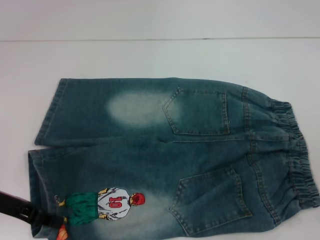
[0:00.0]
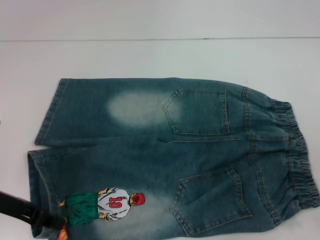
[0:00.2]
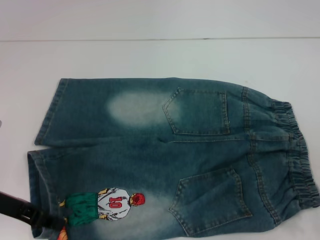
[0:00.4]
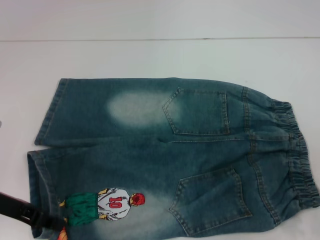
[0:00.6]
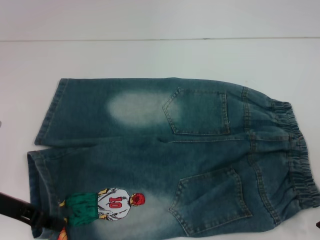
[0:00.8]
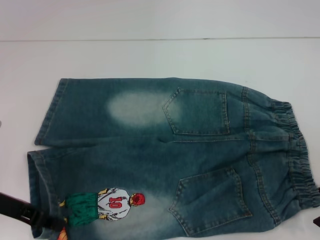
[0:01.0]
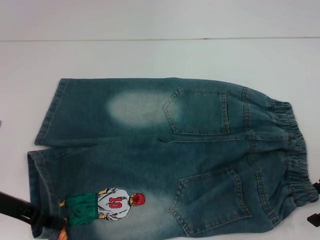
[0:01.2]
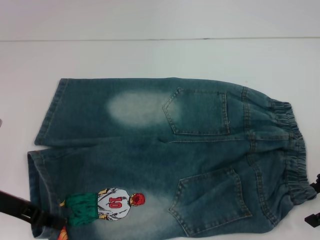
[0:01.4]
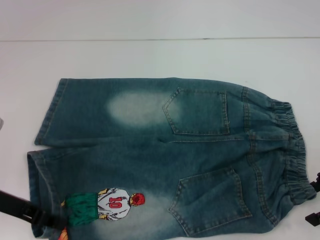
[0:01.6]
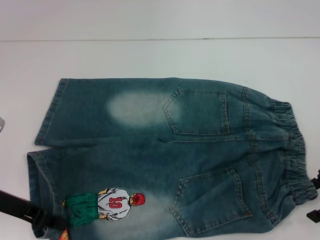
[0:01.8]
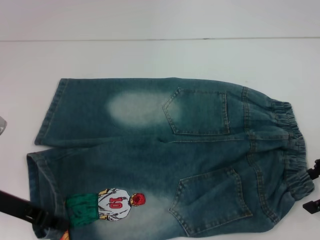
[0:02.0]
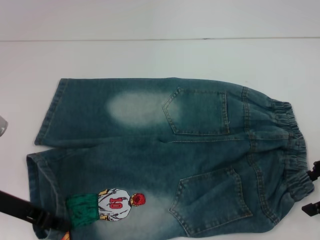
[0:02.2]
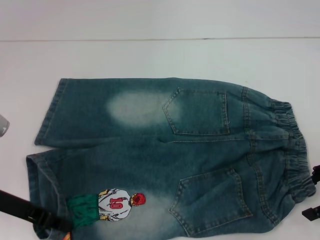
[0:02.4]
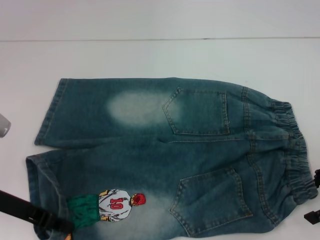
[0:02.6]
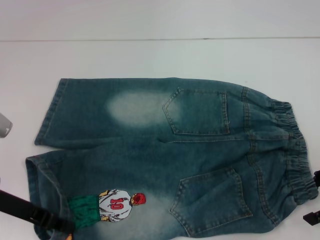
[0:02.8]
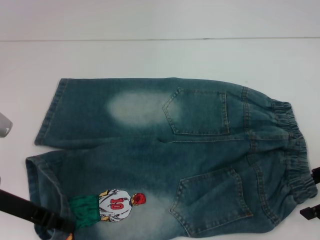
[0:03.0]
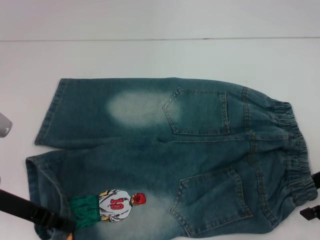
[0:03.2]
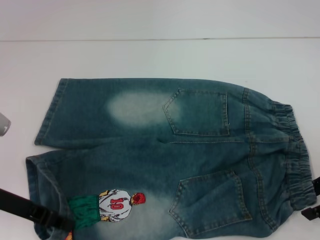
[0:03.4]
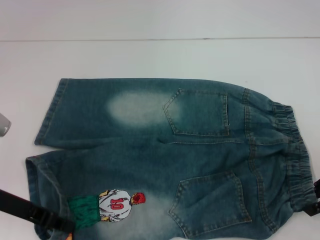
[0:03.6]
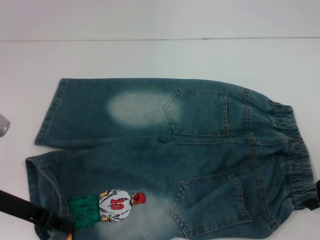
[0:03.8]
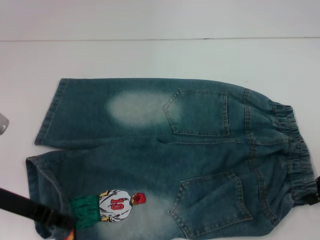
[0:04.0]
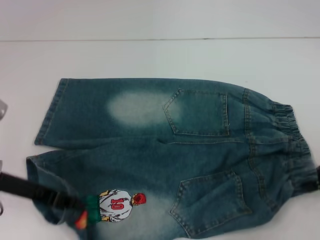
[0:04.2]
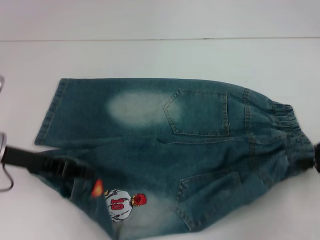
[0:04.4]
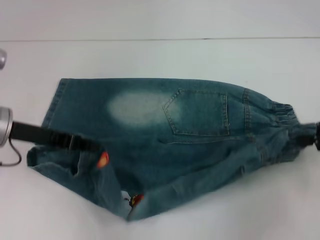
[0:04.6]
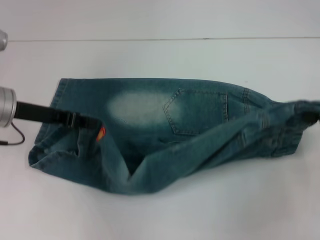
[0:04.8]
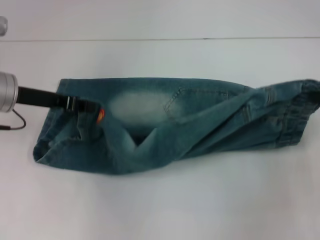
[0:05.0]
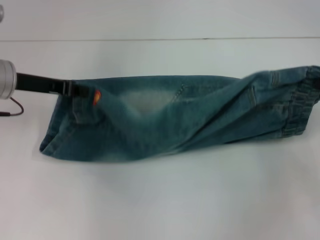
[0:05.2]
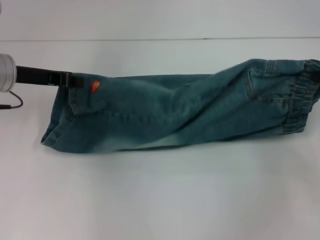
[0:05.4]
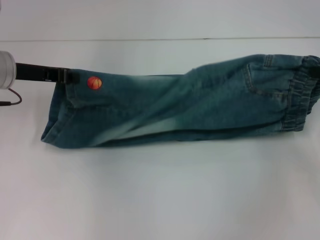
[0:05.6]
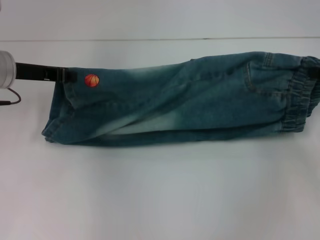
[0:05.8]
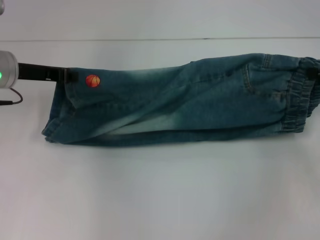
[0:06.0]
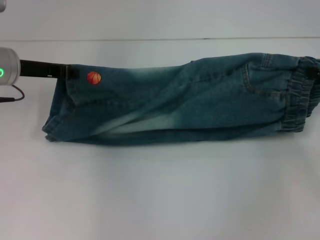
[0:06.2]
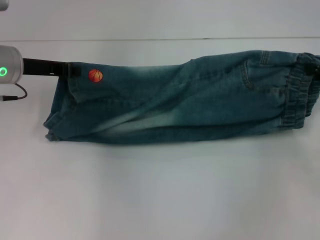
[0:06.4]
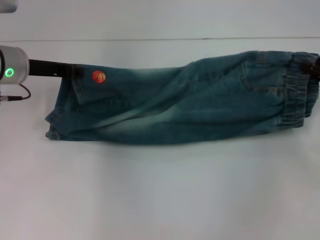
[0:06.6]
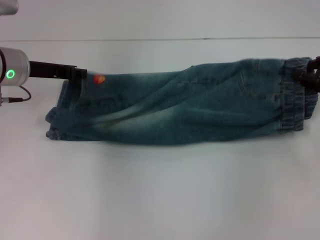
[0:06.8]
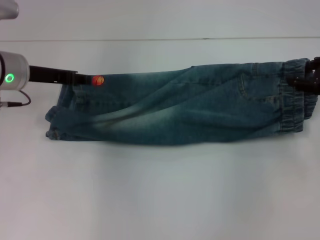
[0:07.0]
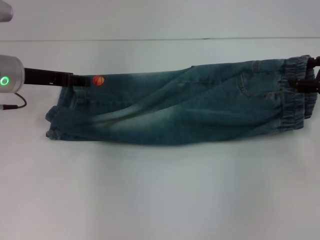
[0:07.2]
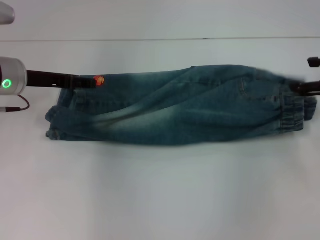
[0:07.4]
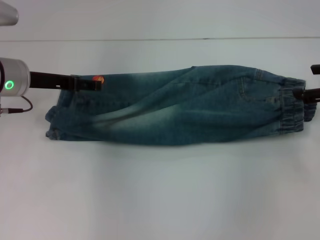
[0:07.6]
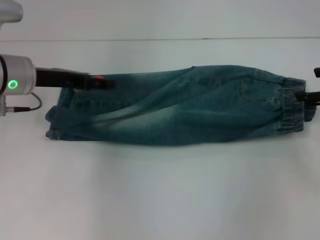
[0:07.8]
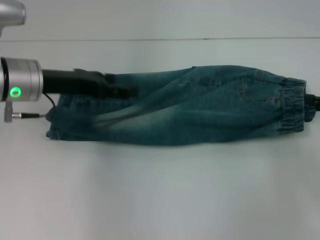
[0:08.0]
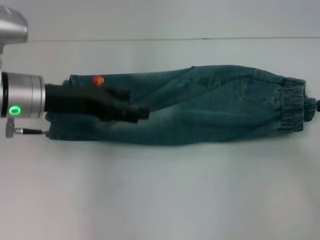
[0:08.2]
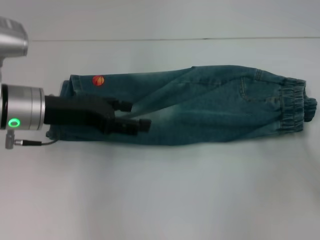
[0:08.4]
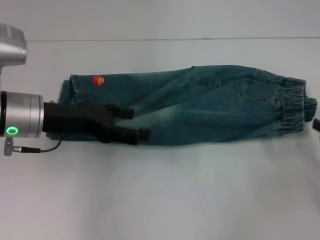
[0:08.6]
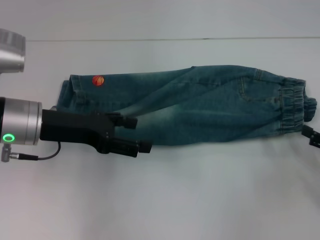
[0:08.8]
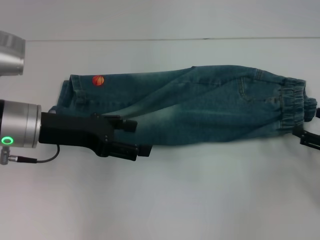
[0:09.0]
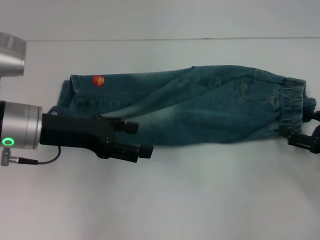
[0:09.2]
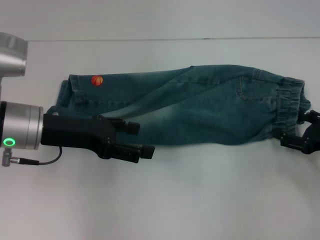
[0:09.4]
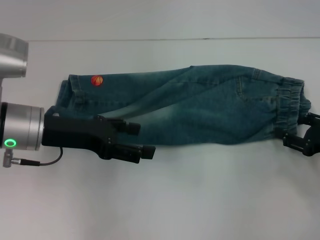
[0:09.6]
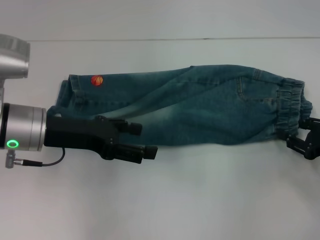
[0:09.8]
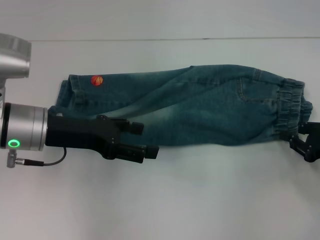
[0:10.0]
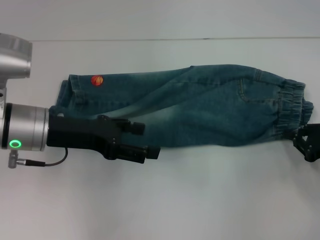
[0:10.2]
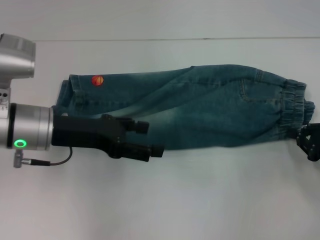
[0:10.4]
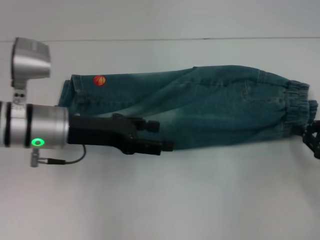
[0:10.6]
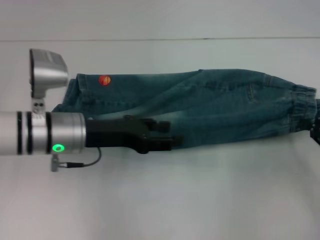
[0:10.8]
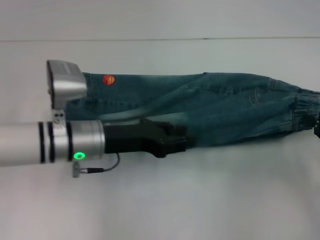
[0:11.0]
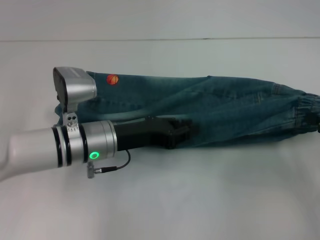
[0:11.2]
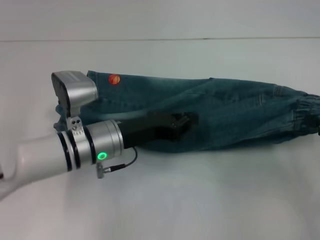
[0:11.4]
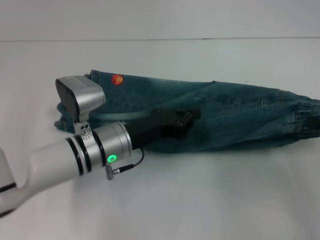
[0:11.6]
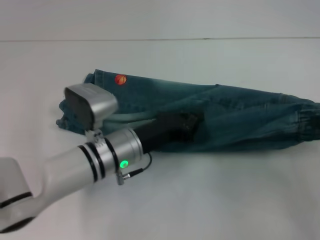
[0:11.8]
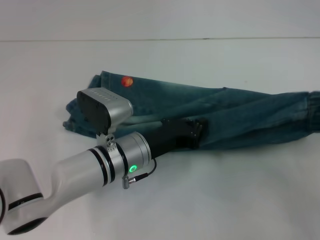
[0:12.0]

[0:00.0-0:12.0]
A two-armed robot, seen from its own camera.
Step, 0:00.0 to 0:04.0: Hold the lower right waistband with your right hand.
Step, 0:04.2 to 0:06.8: Fold upward with your left hand.
Step, 0:07.0 to 0:07.4: Fold upward with your right hand.
Step, 0:07.6 to 0:10.4: Grab the waistband with your right hand.
0:00.0 to 0:03.0: The grippers stay close to where they were, moving slightly.
0:03.0 to 0:04.4: The right gripper closes its fingers.
0:04.4 to 0:06.0: The two grippers go roughly 10 cm forward.
0:06.0 to 0:07.6: The left gripper opens. Meanwhile the right gripper opens its fingers.
0:07.6 to 0:09.0: The left gripper is displaced backward by some 10 cm, while the right gripper goes roughly 15 cm backward and downward.
0:09.0 to 0:10.4: The right gripper closes up.
0:10.4 to 0:12.0: The right gripper goes about 10 cm upward; the left gripper heads to the right and downward, covering roughly 15 cm, and closes up.

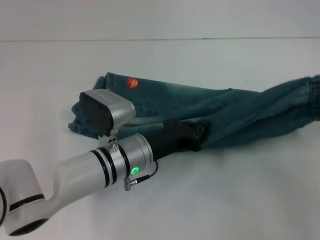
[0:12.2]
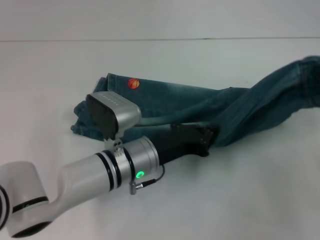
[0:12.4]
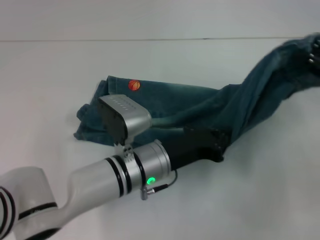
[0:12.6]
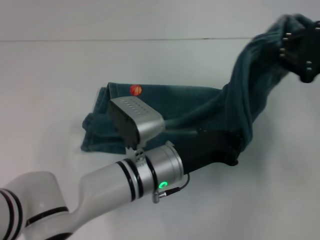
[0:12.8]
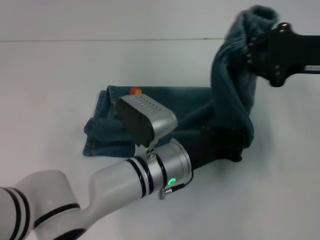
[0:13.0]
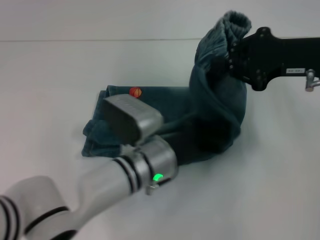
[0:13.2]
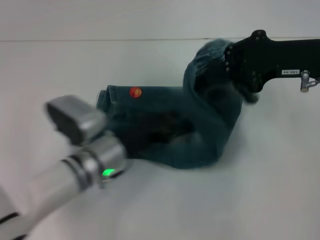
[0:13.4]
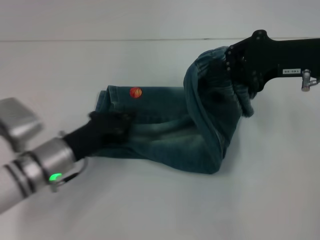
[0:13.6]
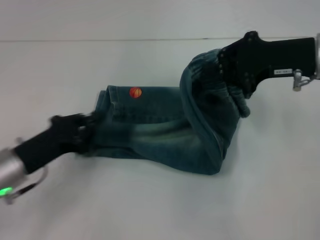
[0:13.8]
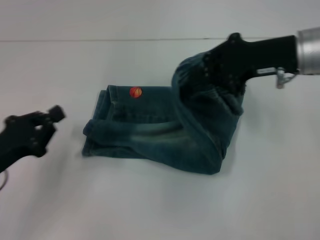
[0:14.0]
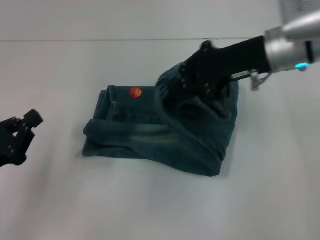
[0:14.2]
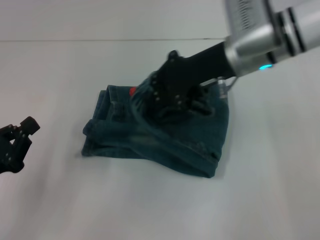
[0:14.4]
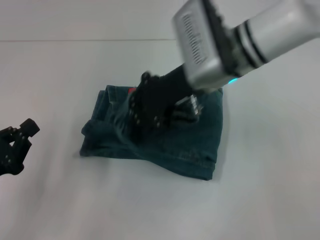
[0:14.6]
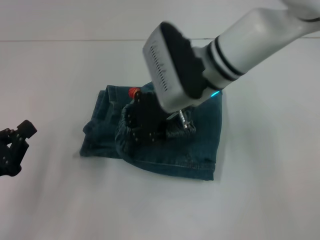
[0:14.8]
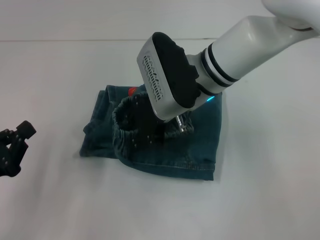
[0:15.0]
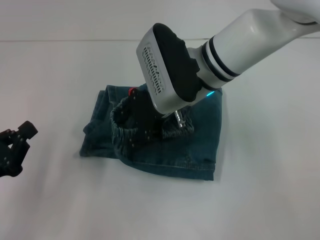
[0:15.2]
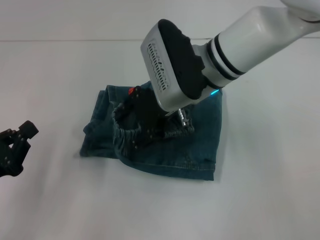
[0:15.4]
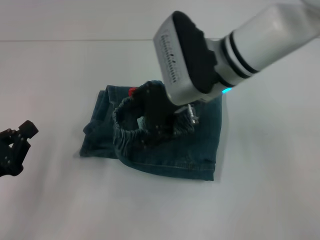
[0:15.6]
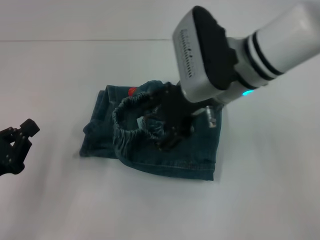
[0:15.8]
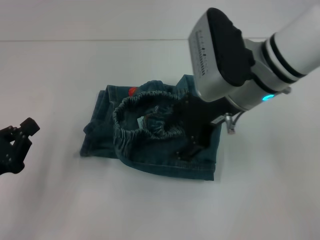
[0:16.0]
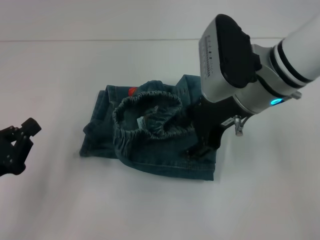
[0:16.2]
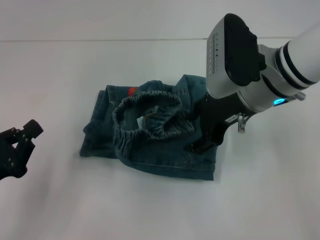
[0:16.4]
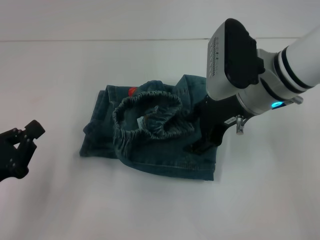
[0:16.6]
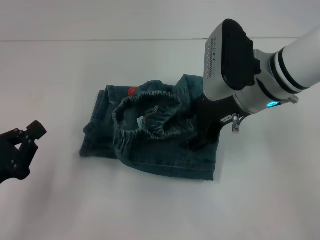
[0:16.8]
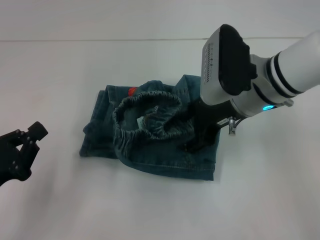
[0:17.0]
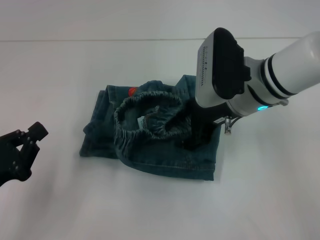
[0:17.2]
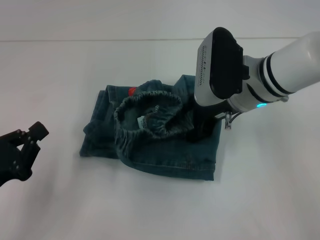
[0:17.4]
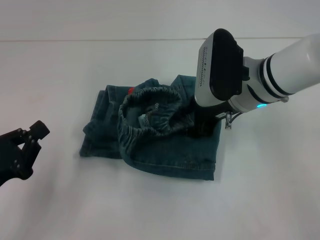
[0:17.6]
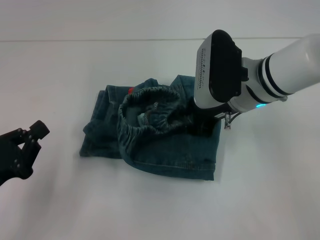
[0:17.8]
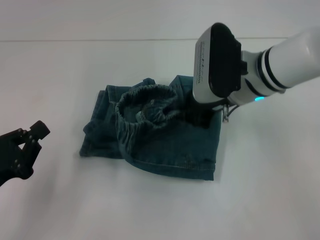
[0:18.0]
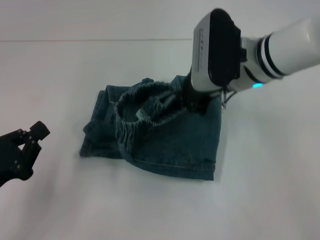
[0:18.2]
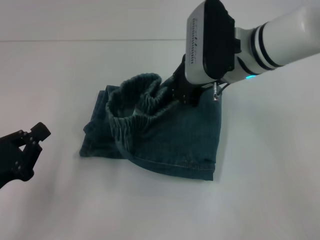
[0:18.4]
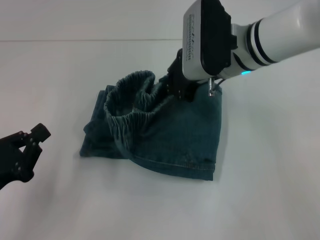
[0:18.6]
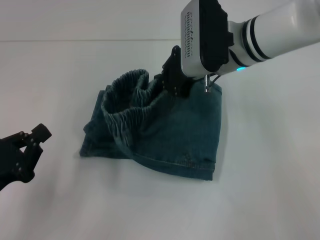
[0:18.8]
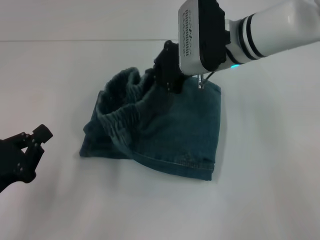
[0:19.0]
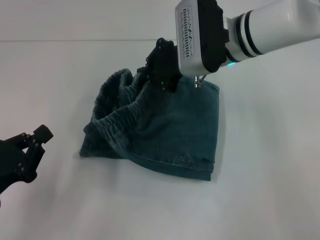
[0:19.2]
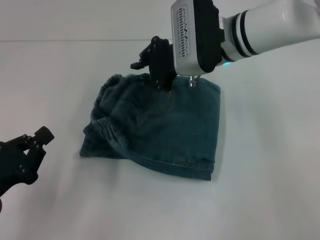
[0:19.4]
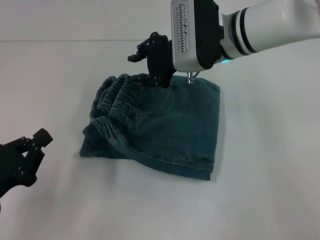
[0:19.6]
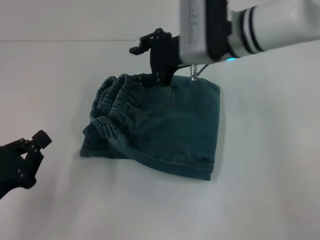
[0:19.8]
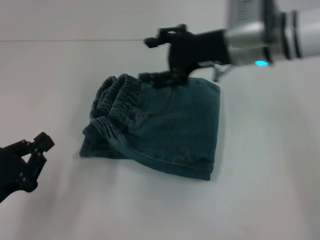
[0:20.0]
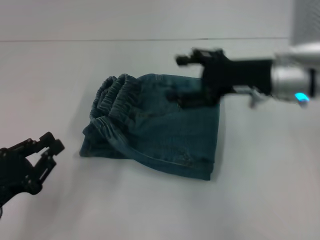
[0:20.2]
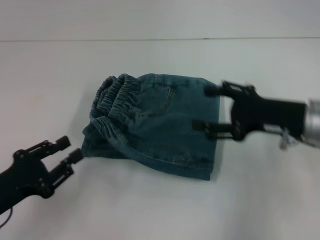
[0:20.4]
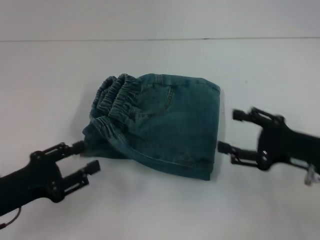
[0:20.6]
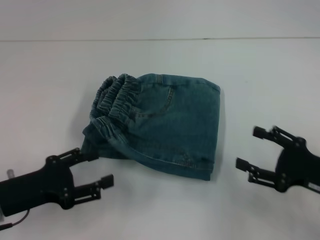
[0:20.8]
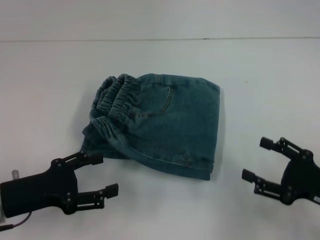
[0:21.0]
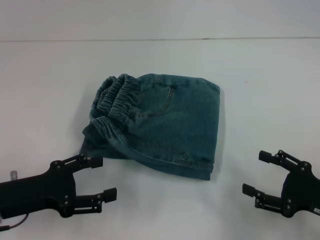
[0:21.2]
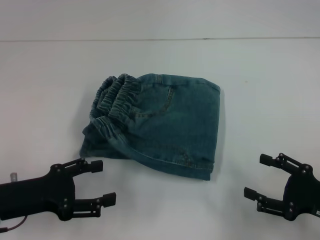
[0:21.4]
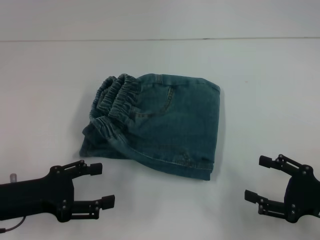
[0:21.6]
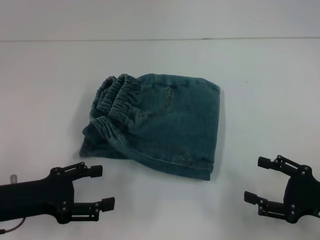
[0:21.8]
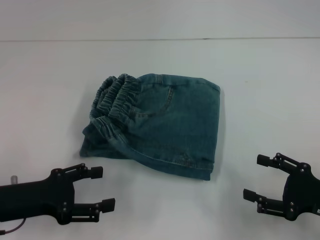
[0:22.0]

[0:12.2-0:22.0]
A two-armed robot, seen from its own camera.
Step, 0:13.2 to 0:19.6: Fold to the left with your right hand.
0:12.2 to 0:13.6: The right gripper shifts some 15 cm to the left and forward. The left gripper goes roughly 10 cm to the left.
0:13.6 to 0:15.0: The left gripper heads to the left and backward, covering approximately 15 cm; the right gripper moves to the left, approximately 20 cm.
0:15.0 to 0:16.4: The right gripper is displaced to the right by approximately 10 cm, and opens.
0:16.4 to 0:17.8: The grippers make only small movements.
0:17.8 to 0:19.2: The right gripper shifts by about 5 cm, and closes.
0:19.2 to 0:20.6: The left gripper opens, while the right gripper is displaced to the right, backward and downward by roughly 25 cm, and opens up.
0:20.6 to 0:22.0: The left gripper opens up. Meanwhile the right gripper is displaced backward by roughly 5 cm.
